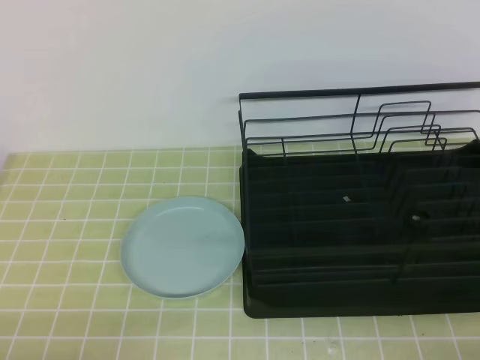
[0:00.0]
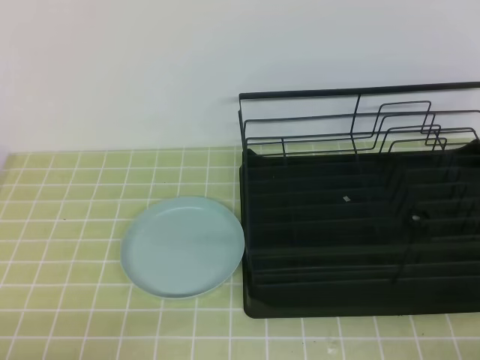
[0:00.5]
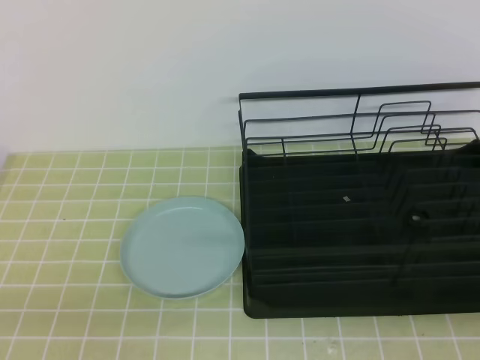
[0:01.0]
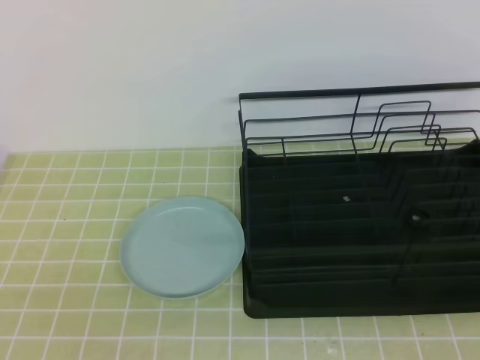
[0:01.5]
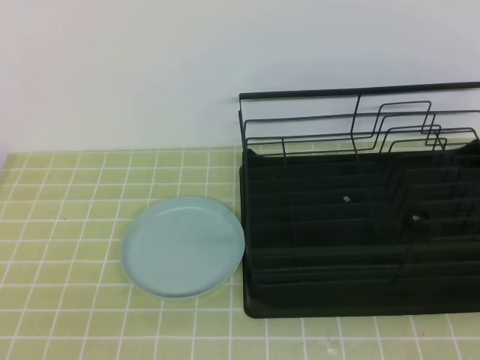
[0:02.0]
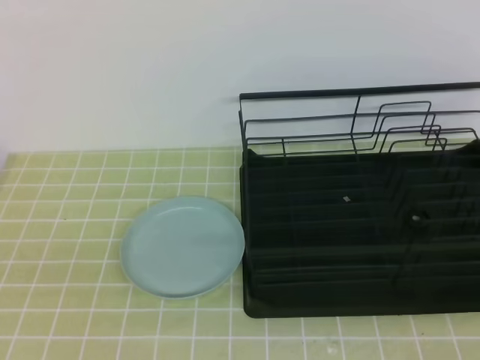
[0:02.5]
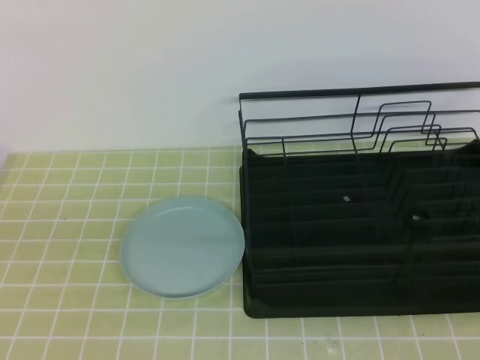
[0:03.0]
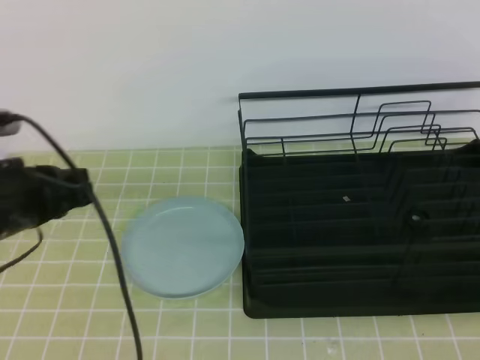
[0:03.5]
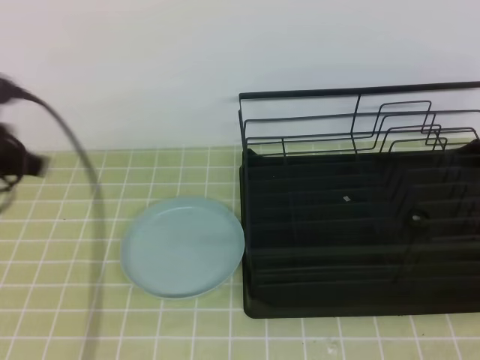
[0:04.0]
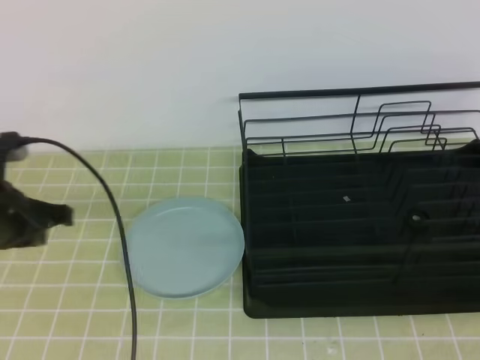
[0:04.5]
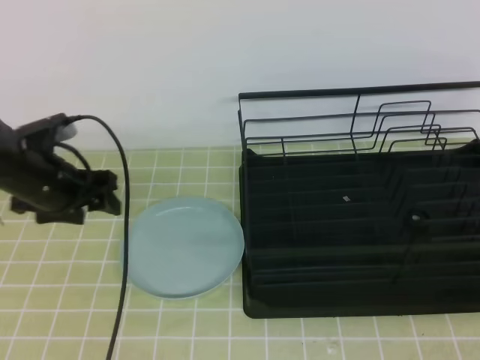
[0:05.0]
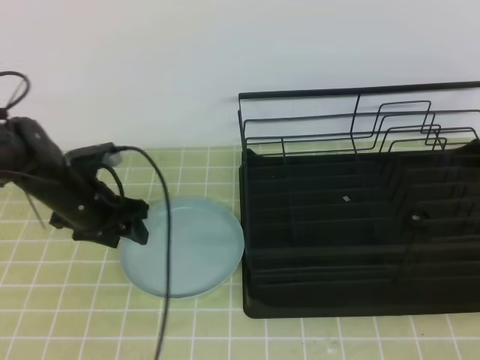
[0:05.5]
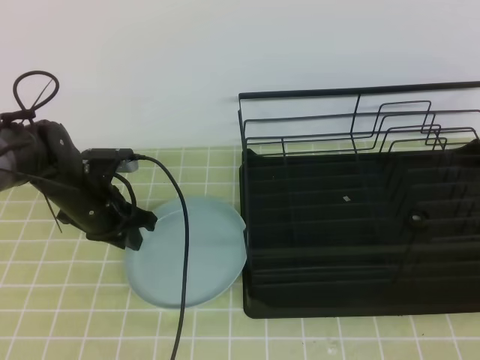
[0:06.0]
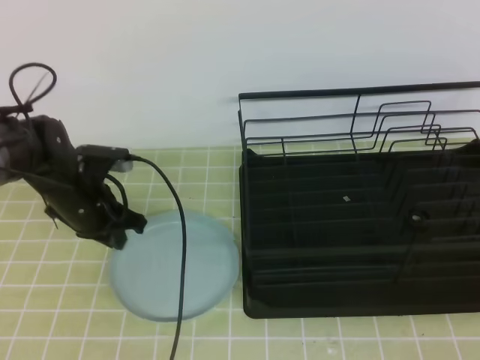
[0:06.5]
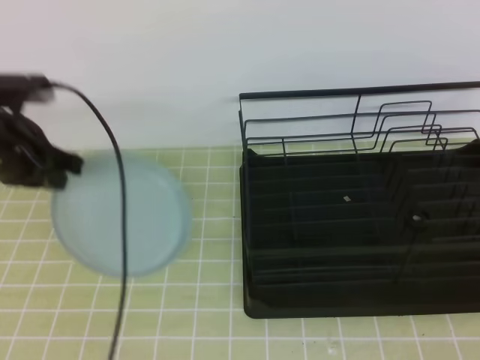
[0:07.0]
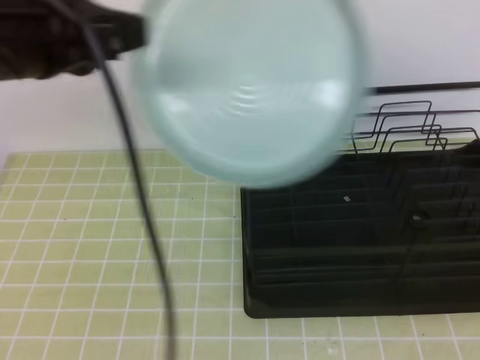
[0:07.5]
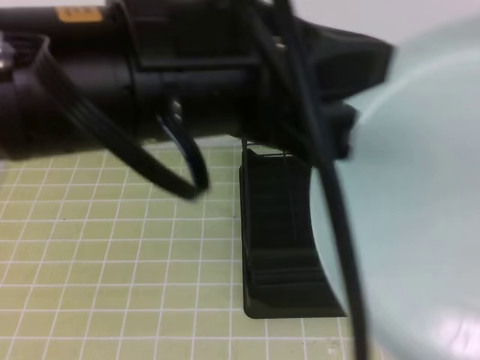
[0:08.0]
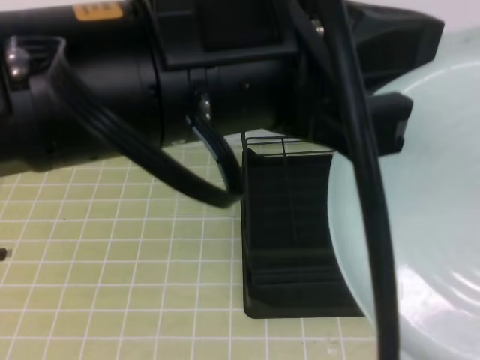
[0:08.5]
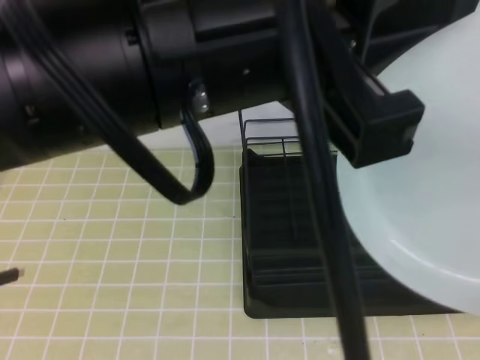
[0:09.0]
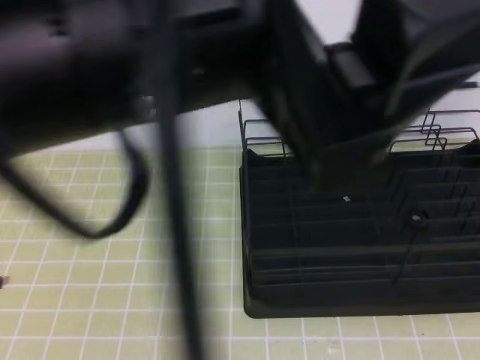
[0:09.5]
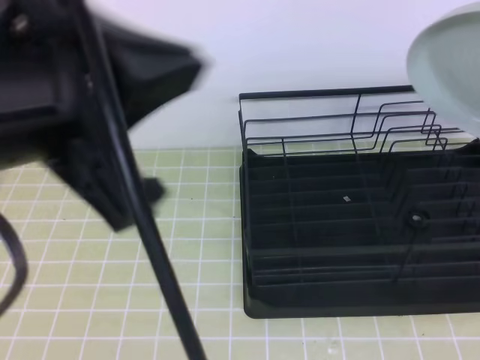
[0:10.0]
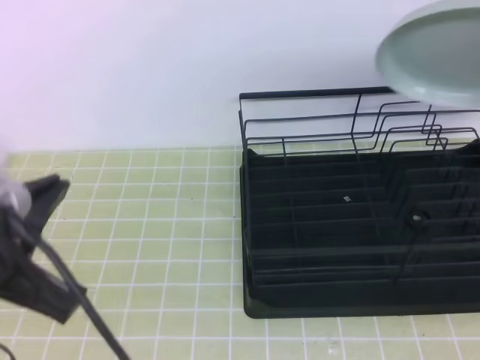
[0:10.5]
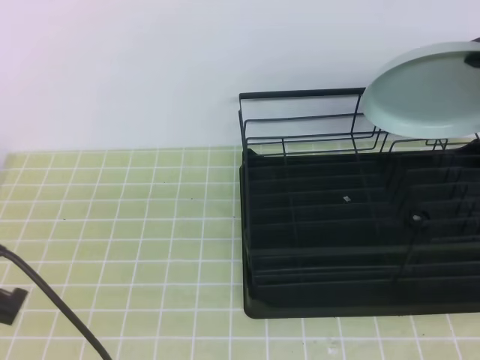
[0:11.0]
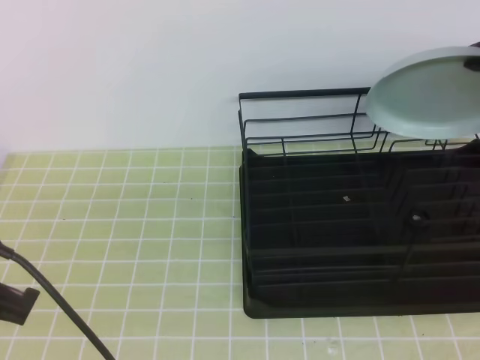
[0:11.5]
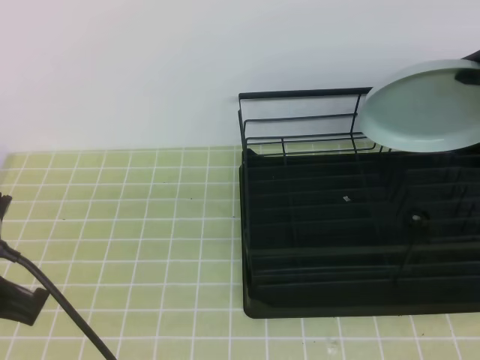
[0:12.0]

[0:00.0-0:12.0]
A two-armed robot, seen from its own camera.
Step, 0:00.0 to 0:05.0: Left grab the green plate.
Step, 0:08.0 to 0:11.0: Right place it at the back of the shelf.
0:02.0 to 0:04.0: The left gripper heads forward, covering approximately 30 cm.
0:04.0 to 0:06.0: The left gripper heads downward, forward and to the right, covering approximately 15 cm, and opens up.
0:06.0 to 0:08.0: The right gripper travels upward and to the left by roughly 10 cm, and opens; the left gripper travels upward and backward by approximately 40 cm, and closes.
0:08.0 to 0:10.0: The right gripper heads forward, covering some 15 cm, and closes its fingers. The left gripper moves to the left, some 5 cm, and opens, then closes again.
0:10.0 to 0:12.0: The right gripper shifts about 20 cm forward; the left gripper shifts roughly 20 cm downward and to the left.

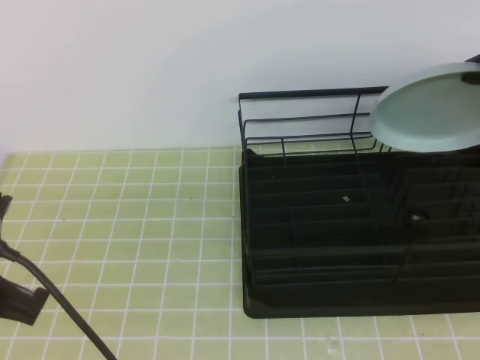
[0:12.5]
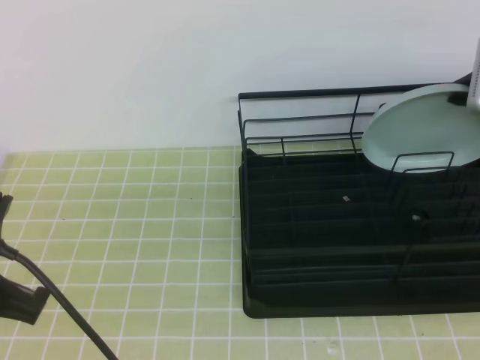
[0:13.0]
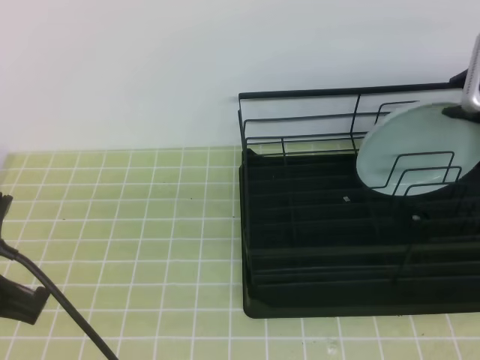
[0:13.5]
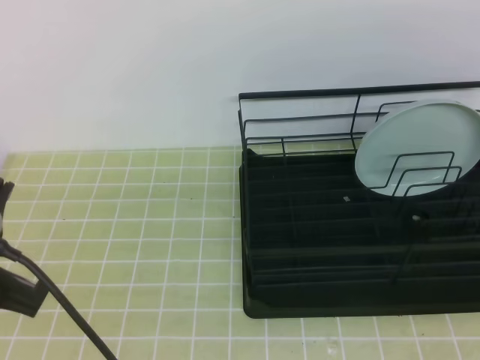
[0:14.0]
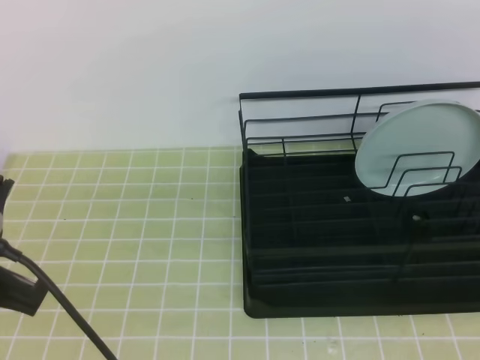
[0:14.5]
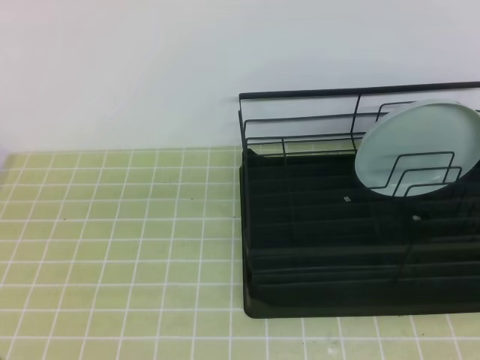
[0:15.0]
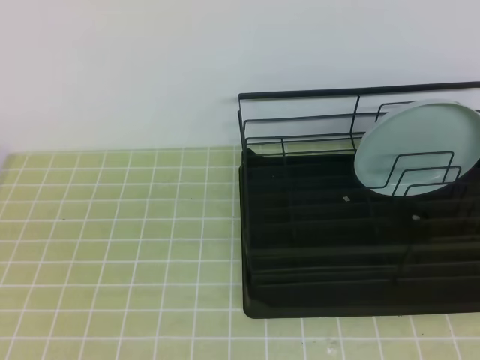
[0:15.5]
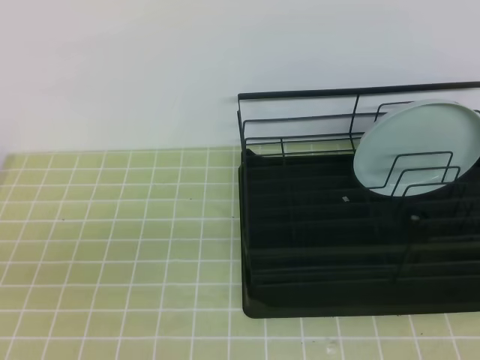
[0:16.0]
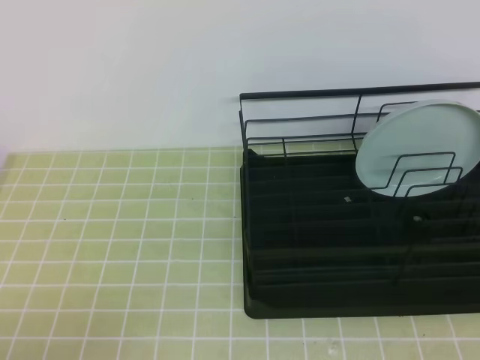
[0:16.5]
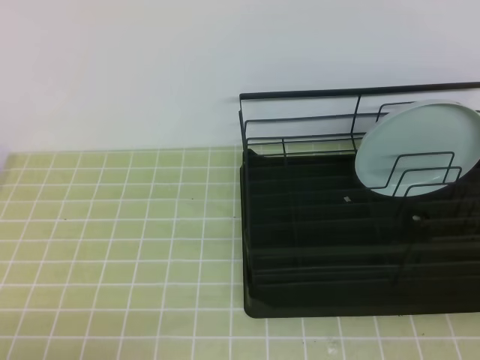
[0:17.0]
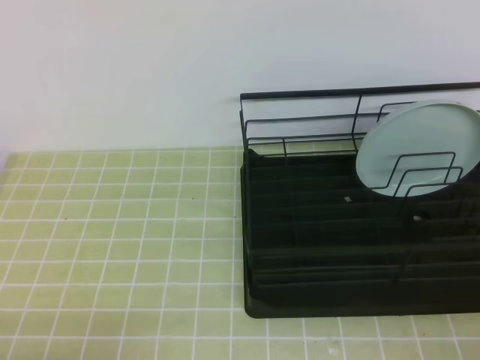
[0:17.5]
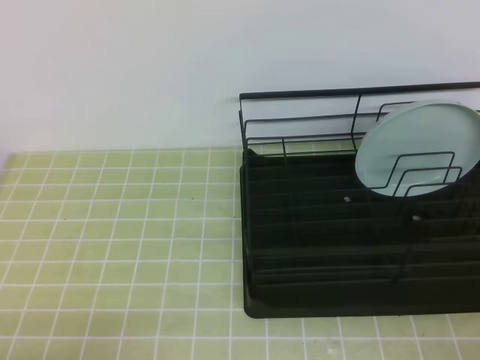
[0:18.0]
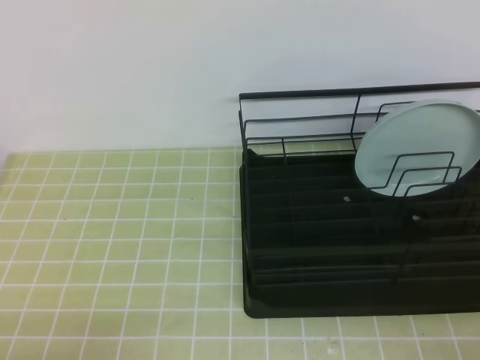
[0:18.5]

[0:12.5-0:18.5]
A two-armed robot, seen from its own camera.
0:12.5 to 0:14.5: The right gripper moves backward and upward, some 30 cm, and opens, then closes again.
0:14.5 to 0:16.5: The left gripper is displaced downward, backward and to the left by roughly 15 cm.

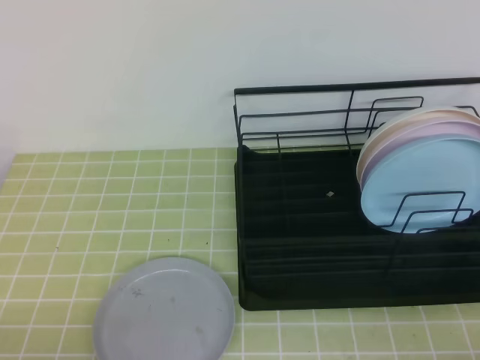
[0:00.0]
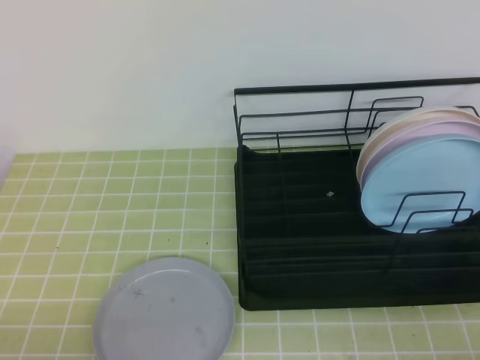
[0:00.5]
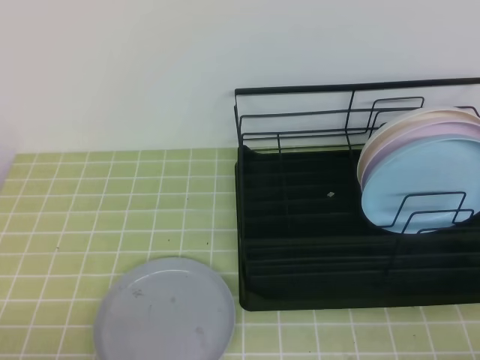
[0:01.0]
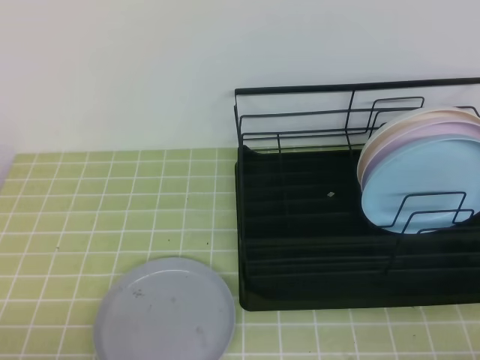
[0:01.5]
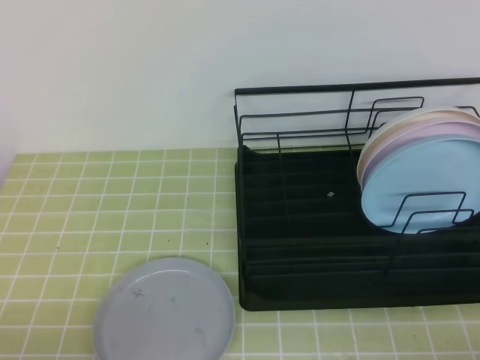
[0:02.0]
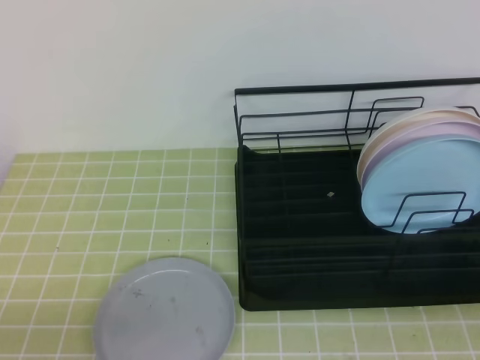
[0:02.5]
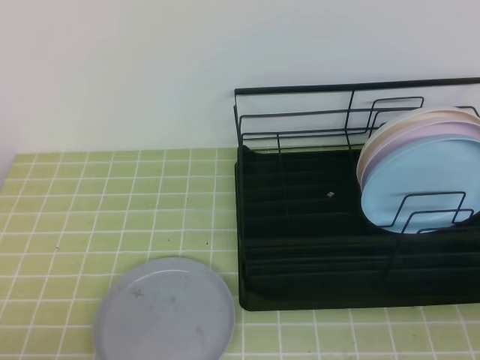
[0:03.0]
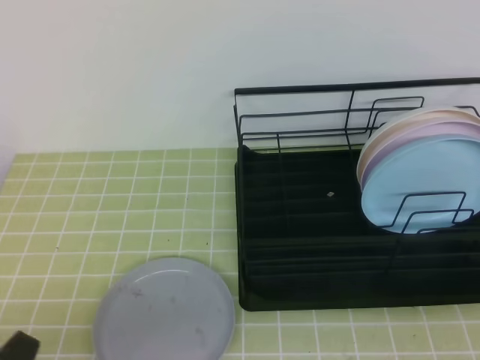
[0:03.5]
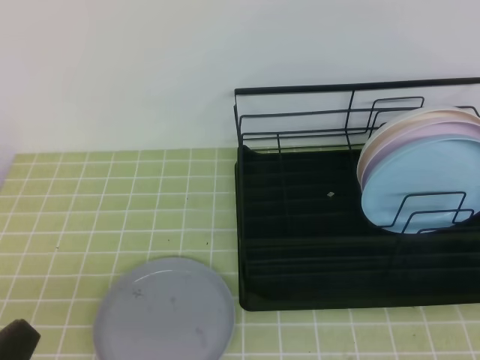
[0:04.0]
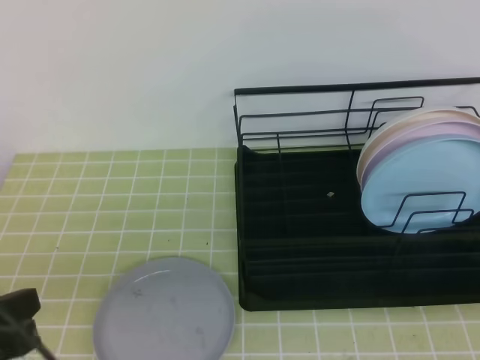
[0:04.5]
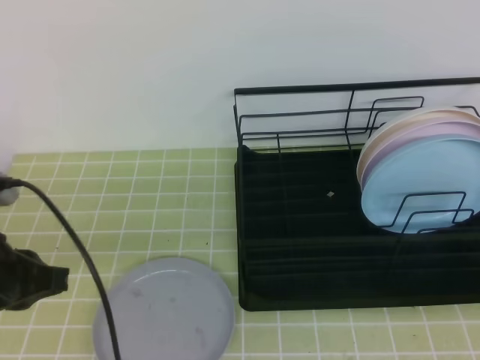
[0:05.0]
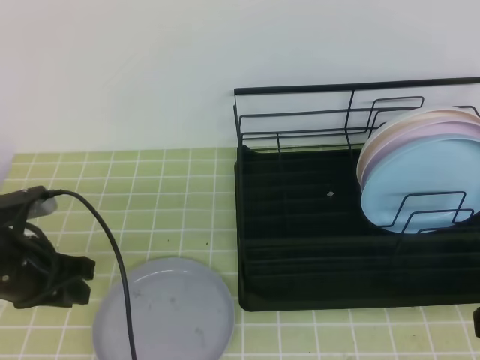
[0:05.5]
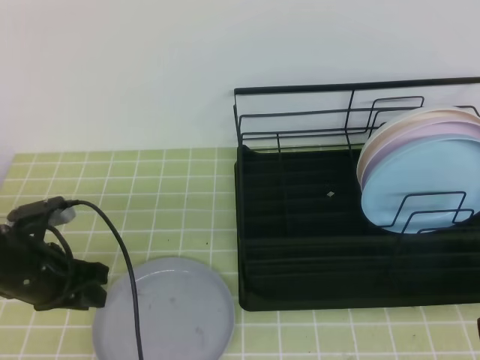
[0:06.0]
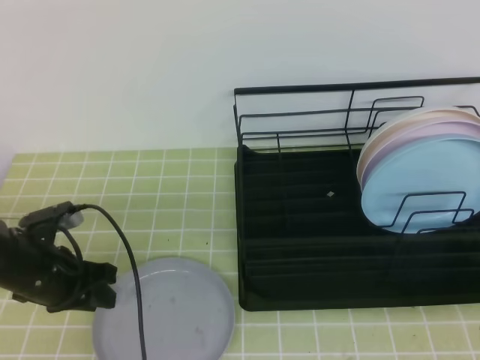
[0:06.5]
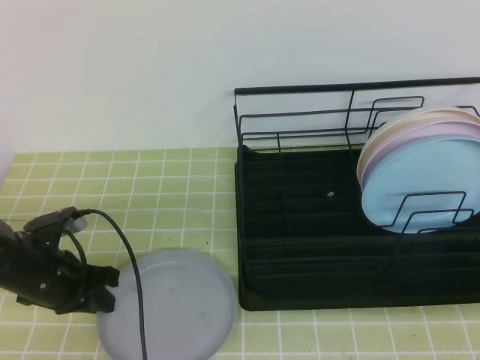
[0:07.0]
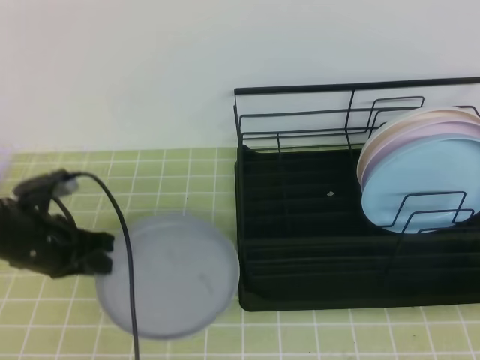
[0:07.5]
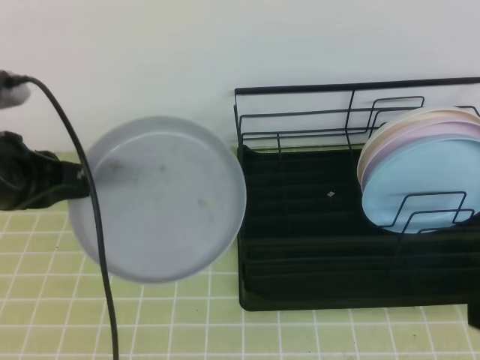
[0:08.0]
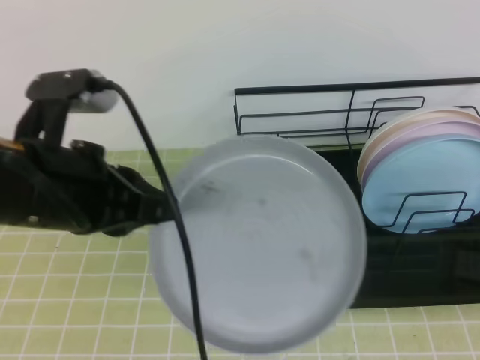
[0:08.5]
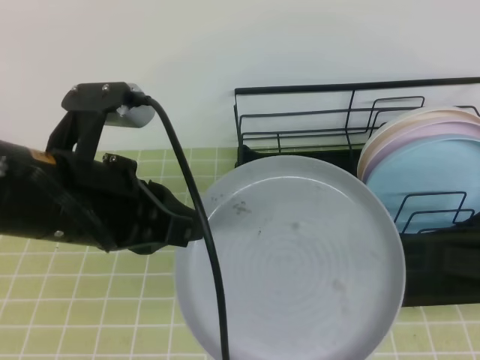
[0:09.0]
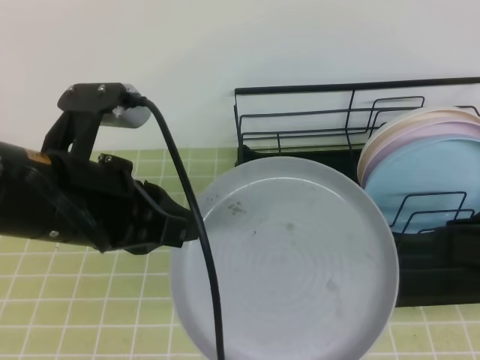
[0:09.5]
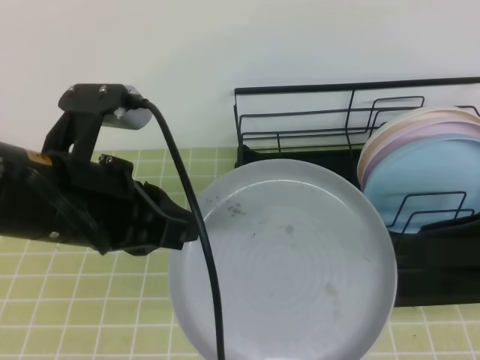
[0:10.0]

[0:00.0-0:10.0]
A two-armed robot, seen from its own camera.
Step, 0:00.0 to 0:05.5: Left grab the gray plate.
0:02.0 to 0:04.0: The left gripper heads upward, covering roughly 5 cm.
0:04.0 to 0:06.0: The left gripper travels forward by about 25 cm, and opens its fingers.
0:06.0 to 0:08.0: The left gripper is displaced upward by about 15 cm, and closes its fingers.
0:08.0 to 0:10.0: The left gripper shifts some 10 cm to the right and backward, while the right gripper goes approximately 5 cm forward, and opens.
